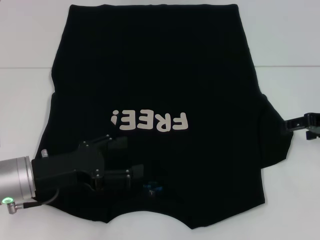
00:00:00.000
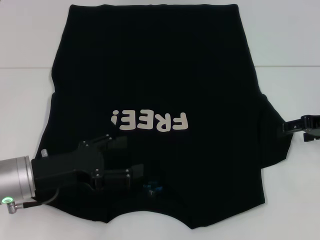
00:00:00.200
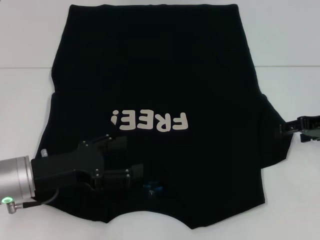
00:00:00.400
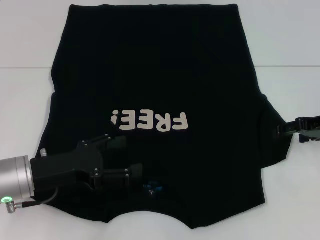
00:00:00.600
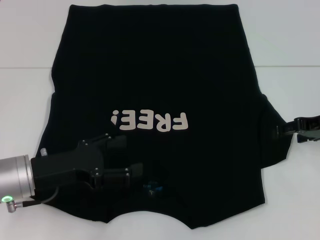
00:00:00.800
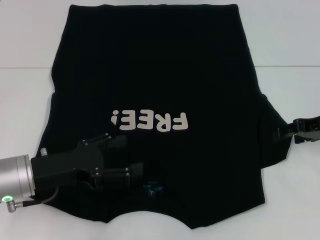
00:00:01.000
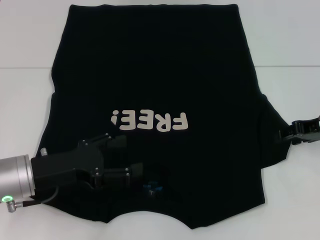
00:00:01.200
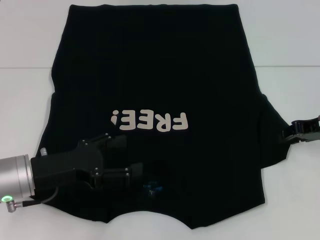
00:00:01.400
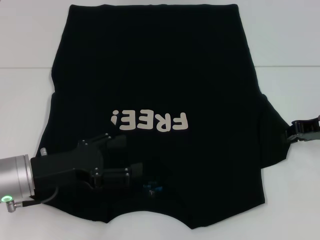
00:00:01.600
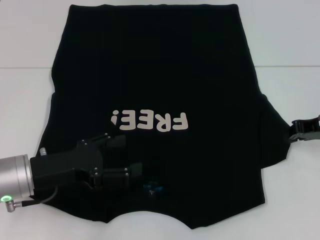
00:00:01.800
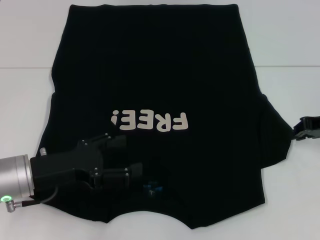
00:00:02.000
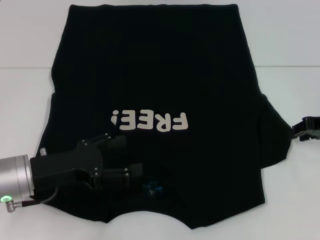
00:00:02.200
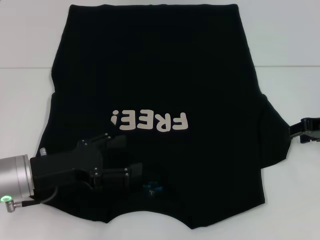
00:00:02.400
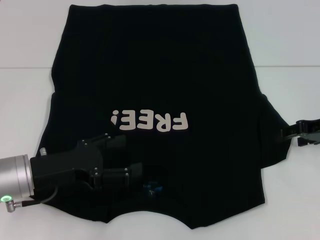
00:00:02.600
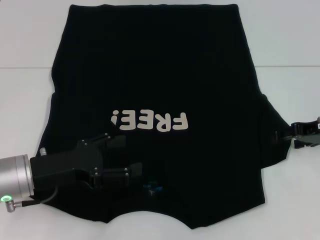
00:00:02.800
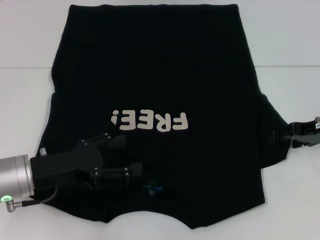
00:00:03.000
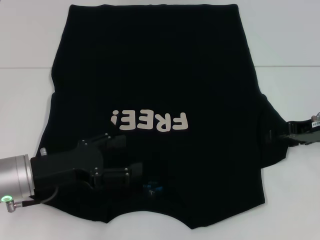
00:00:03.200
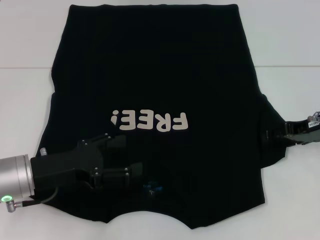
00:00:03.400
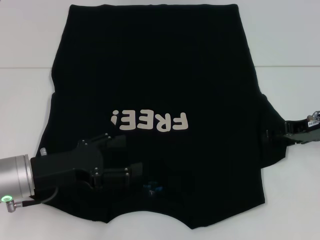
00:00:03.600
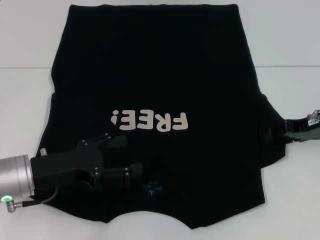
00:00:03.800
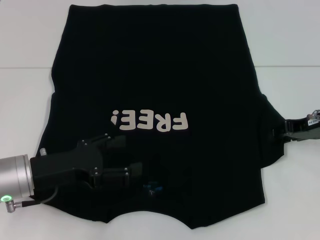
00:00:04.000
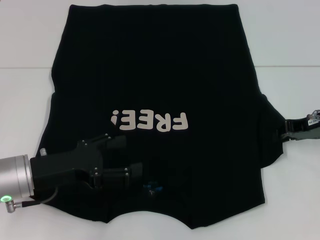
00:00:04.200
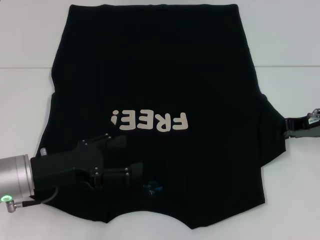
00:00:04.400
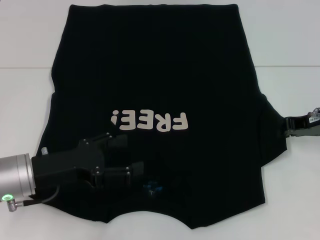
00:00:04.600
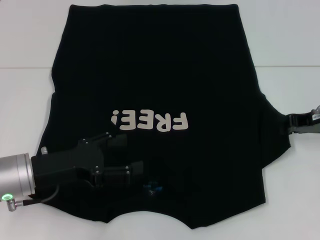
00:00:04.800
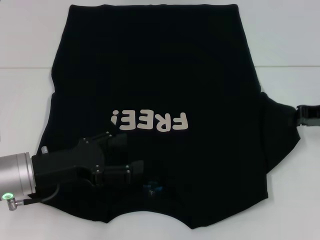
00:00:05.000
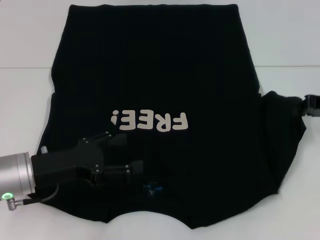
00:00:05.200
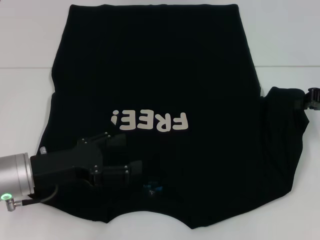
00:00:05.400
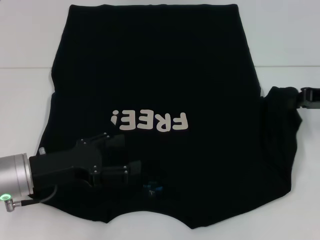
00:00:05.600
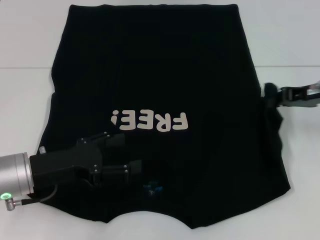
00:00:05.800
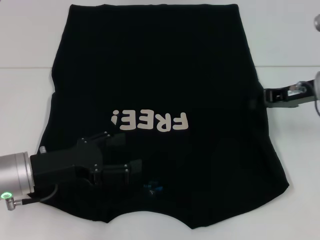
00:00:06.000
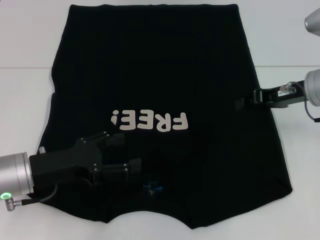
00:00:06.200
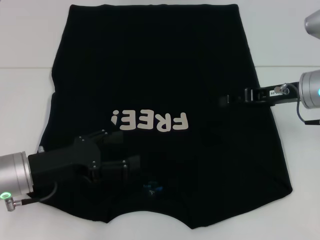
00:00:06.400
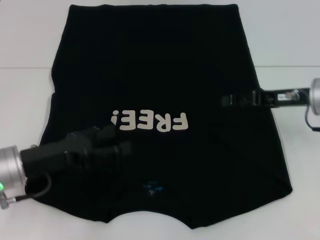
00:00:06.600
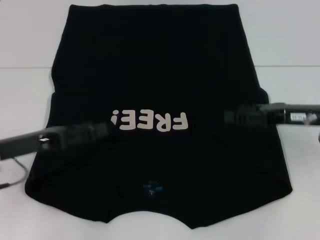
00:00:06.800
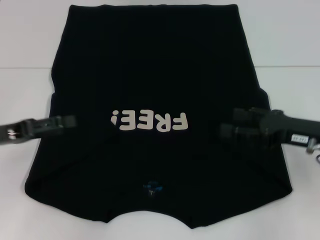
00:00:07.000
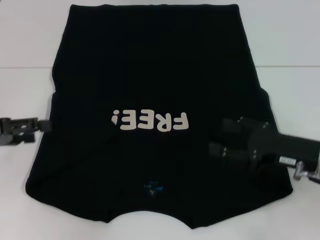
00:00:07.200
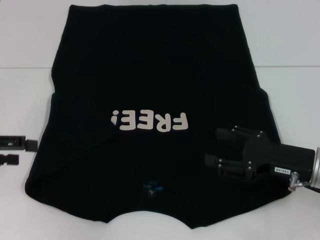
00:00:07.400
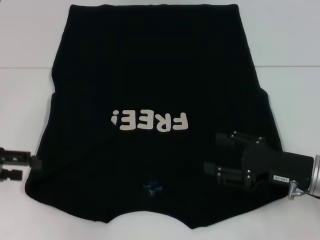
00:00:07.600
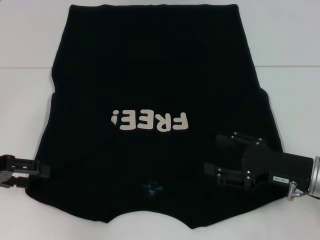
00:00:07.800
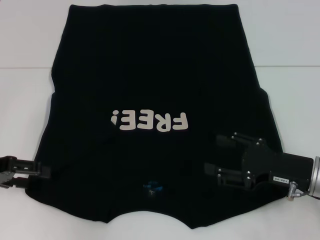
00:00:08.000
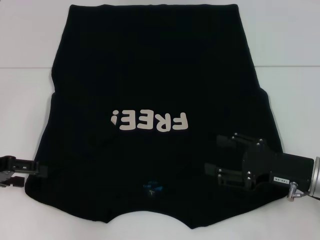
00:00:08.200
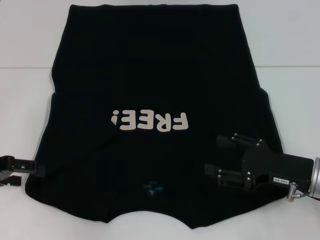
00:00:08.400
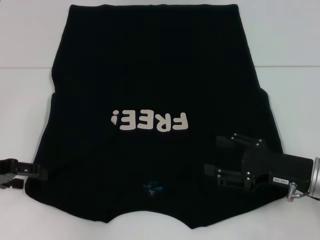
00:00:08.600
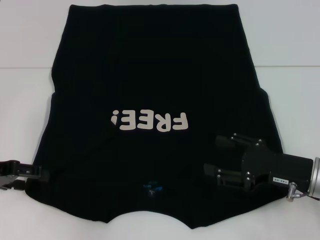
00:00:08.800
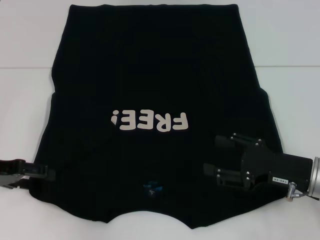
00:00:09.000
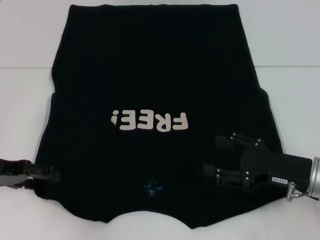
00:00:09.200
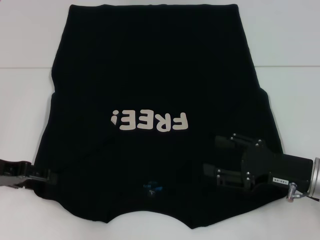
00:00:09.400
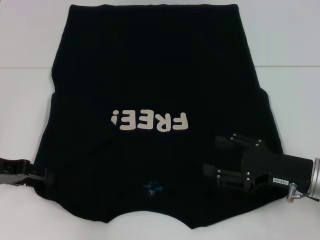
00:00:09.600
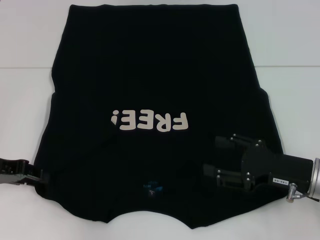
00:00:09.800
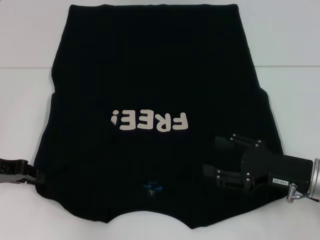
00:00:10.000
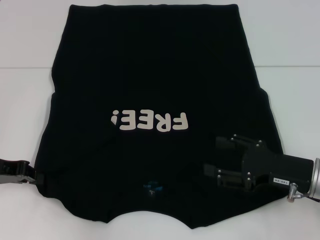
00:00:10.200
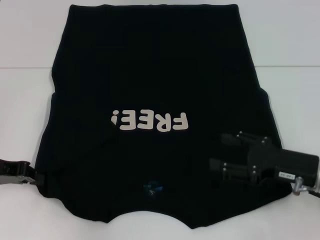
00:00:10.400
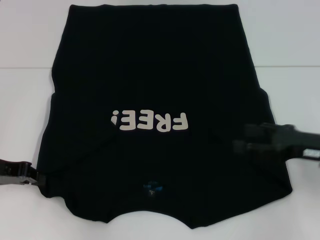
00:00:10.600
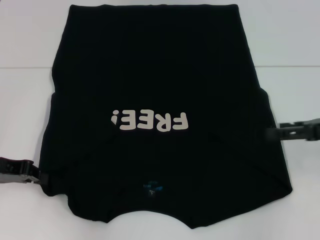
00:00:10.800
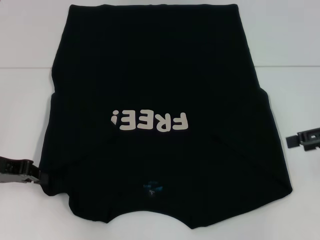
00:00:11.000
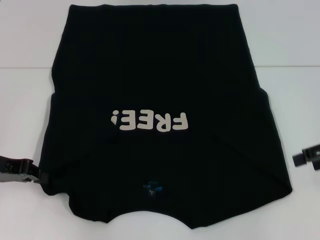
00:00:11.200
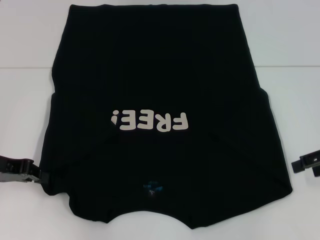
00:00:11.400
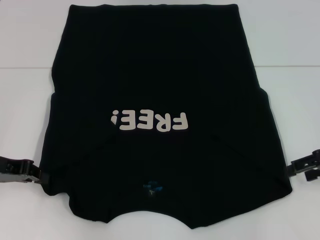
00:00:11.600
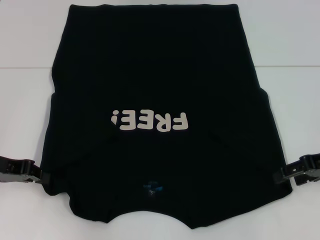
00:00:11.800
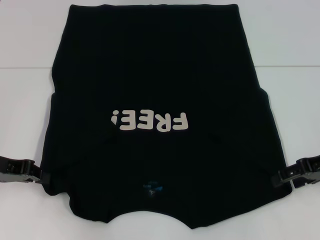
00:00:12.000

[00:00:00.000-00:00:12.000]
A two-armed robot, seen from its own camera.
Step, 00:00:00.000 to 00:00:06.600: Fold the bottom right sleeve with your right hand.
00:00:00.000 to 00:00:01.600: The right gripper closes its fingers.
00:00:03.000 to 00:00:04.400: The right gripper closes up.
00:00:04.400 to 00:00:06.000: The grippers move only a little.
00:00:06.000 to 00:00:07.600: The right gripper goes some 15 cm backward and downward, and opens its fingers. The left gripper is displaced to the left and upward by roughly 15 cm.
00:00:07.600 to 00:00:09.000: The grippers make only small movements.
00:00:09.000 to 00:00:10.400: The left gripper closes its fingers.
00:00:10.400 to 00:00:12.000: The right gripper travels forward, upward and to the right by approximately 10 cm.

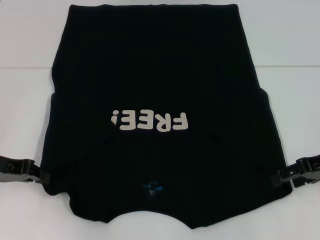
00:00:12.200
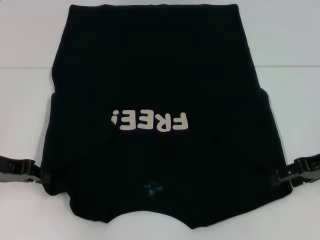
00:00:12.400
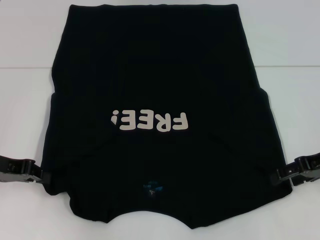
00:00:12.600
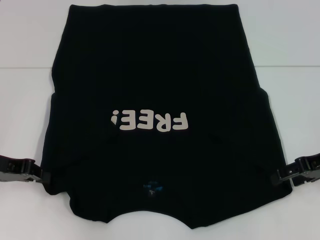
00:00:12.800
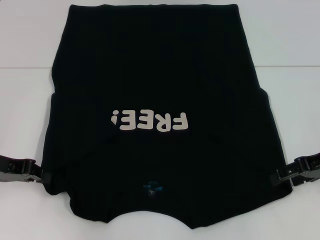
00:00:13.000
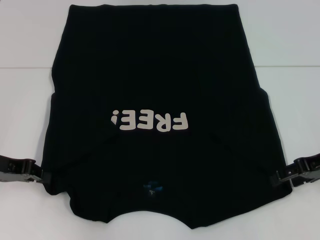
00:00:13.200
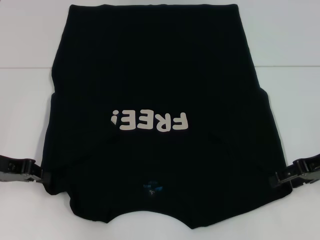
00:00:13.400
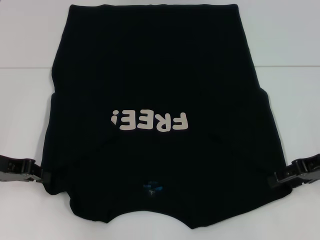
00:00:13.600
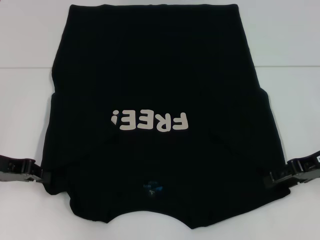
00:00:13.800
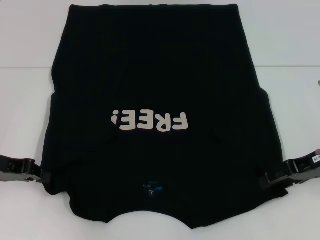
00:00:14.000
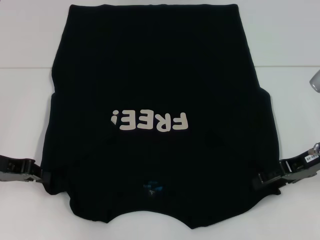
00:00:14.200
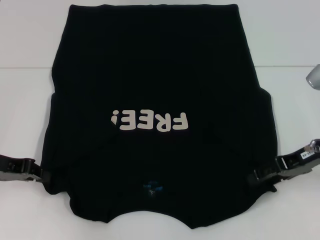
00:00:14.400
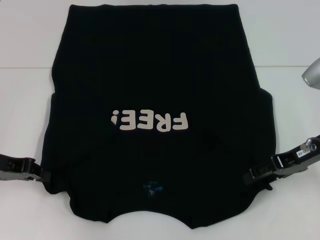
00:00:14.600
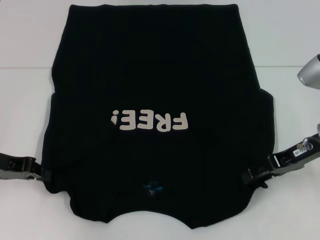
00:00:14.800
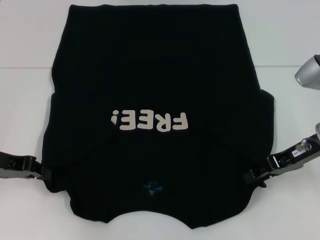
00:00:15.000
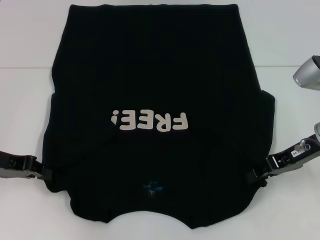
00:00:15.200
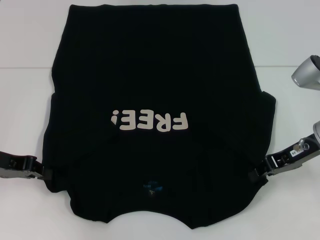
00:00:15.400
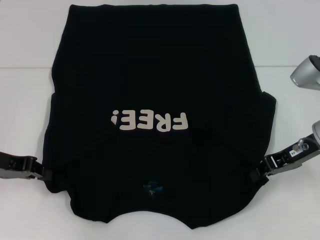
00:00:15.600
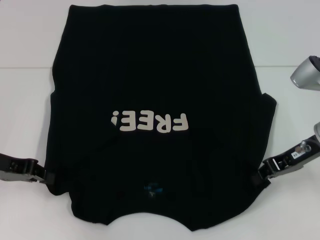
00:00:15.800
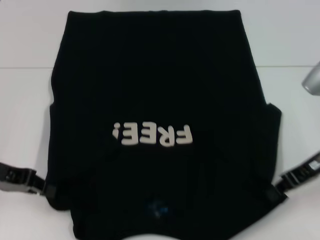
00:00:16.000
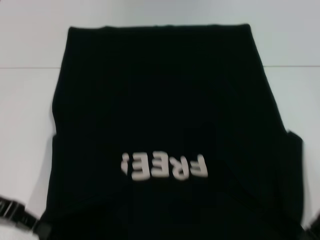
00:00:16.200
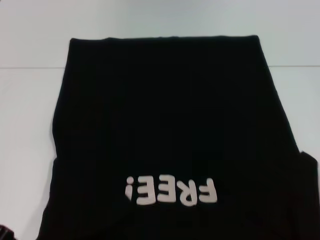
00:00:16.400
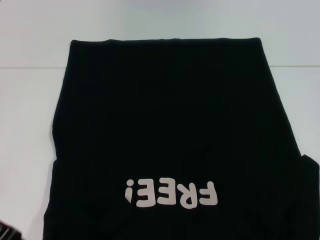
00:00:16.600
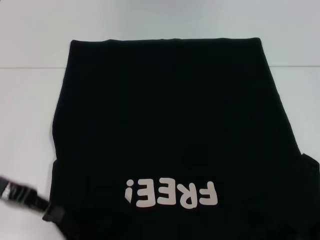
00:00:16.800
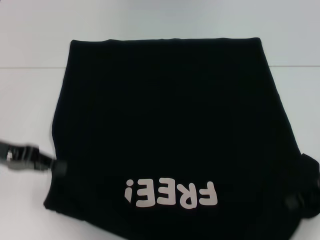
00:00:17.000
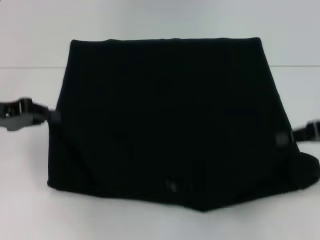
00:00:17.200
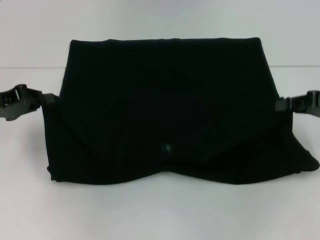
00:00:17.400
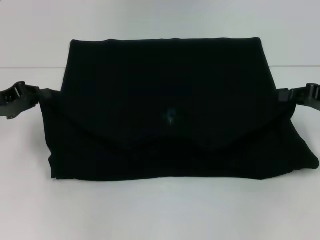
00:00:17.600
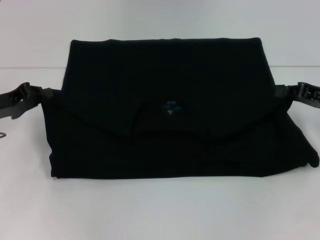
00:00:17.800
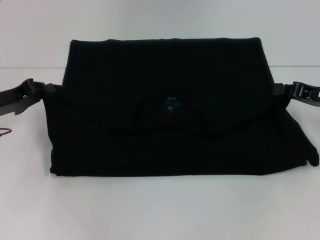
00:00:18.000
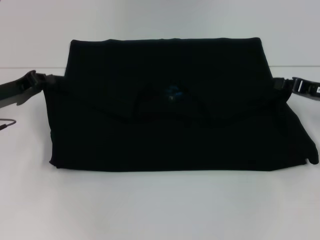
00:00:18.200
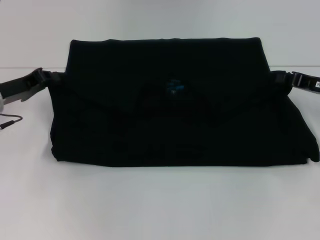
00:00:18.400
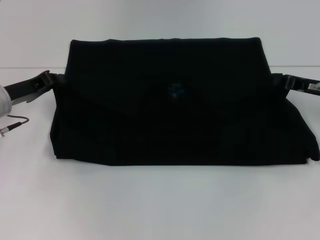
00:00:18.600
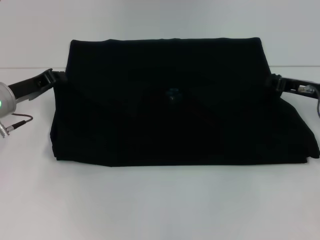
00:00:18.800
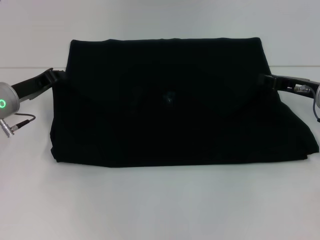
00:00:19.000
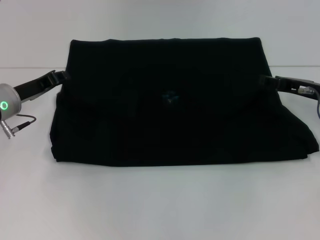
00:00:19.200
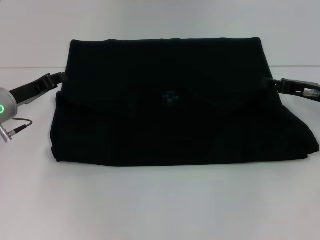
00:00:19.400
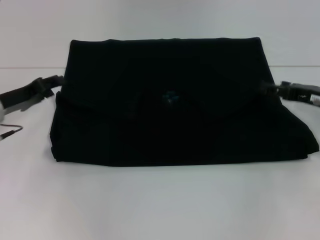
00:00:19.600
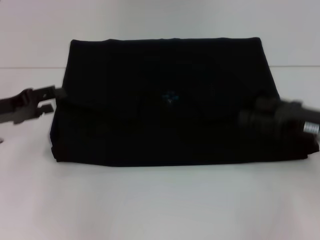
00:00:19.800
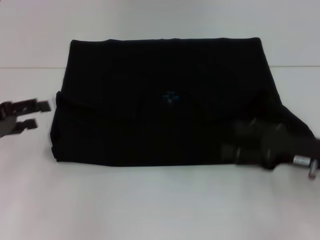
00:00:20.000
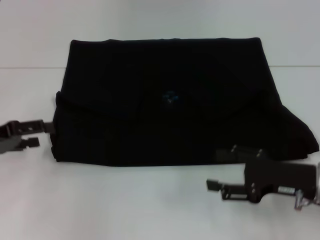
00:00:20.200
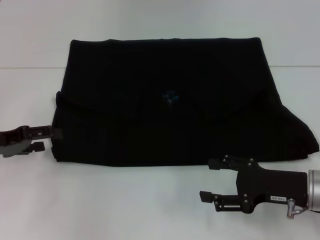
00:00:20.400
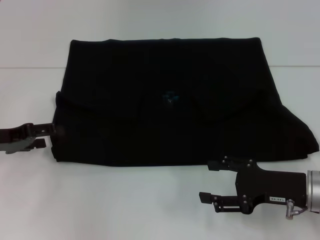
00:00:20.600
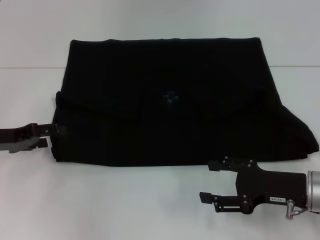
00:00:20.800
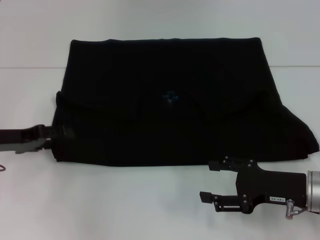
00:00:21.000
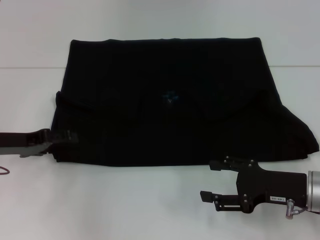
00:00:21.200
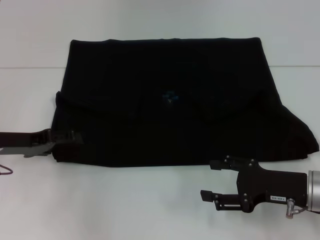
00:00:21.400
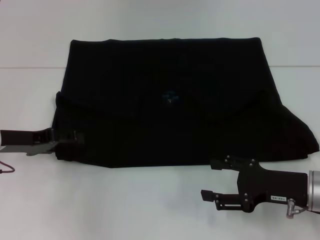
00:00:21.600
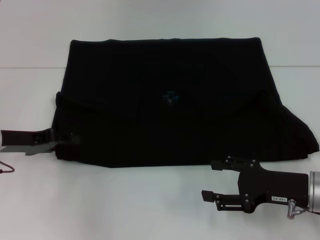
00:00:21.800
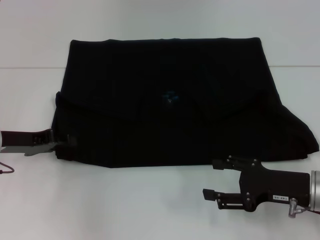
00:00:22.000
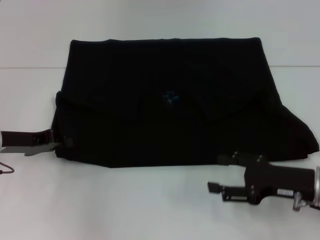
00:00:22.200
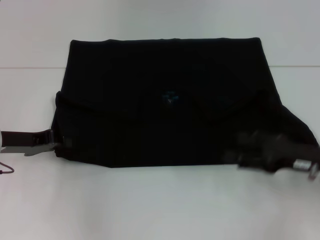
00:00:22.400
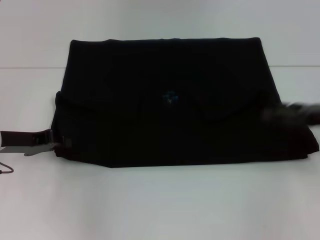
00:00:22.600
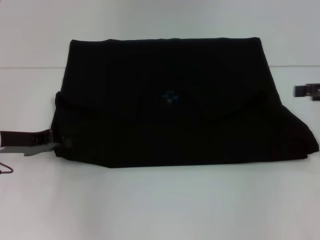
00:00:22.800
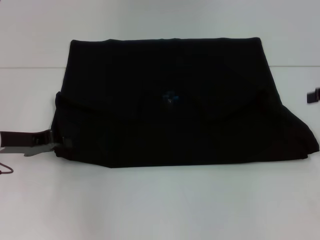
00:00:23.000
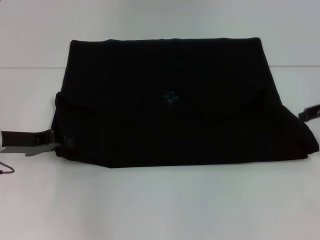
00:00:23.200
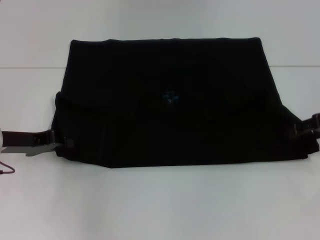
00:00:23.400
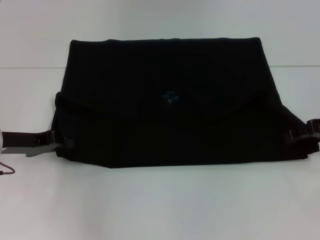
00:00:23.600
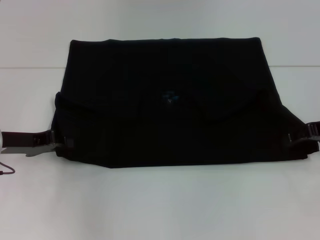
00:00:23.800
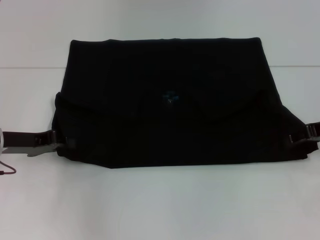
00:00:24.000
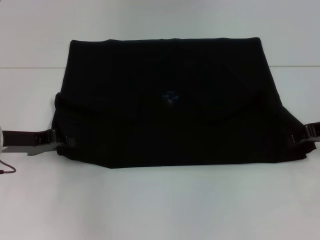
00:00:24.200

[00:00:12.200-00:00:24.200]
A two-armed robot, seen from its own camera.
Step, 00:00:12.200 to 00:00:15.000: Grab the bottom right corner with your right hand.
Step, 00:00:15.200 to 00:00:19.600: Fold the clothes with your left hand.
Step, 00:00:15.200 to 00:00:19.600: Fold the clothes with your right hand.
00:00:12.200 to 00:00:13.800: Both grippers stay about where they are.
00:00:13.800 to 00:00:15.200: The grippers move only a little.
00:00:15.200 to 00:00:16.600: The right gripper goes approximately 5 cm backward, and closes. The left gripper shifts by about 5 cm.
00:00:16.600 to 00:00:18.200: Both grippers travel together forward, some 10 cm.
00:00:18.200 to 00:00:19.800: The right gripper shifts approximately 5 cm backward, and opens its fingers, while the left gripper opens up.
00:00:19.800 to 00:00:21.200: The right gripper is displaced backward by roughly 5 cm.
00:00:21.200 to 00:00:22.600: The left gripper closes up. The right gripper is displaced to the right, upward and forward by about 15 cm.
00:00:22.600 to 00:00:24.200: The right gripper travels forward by approximately 5 cm.
